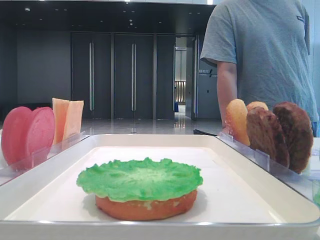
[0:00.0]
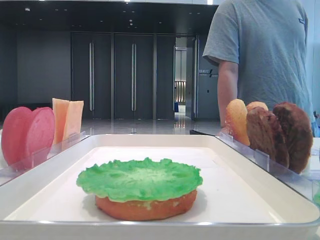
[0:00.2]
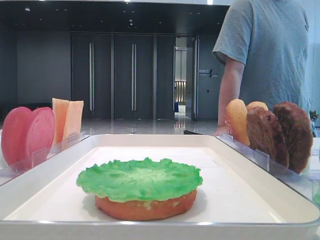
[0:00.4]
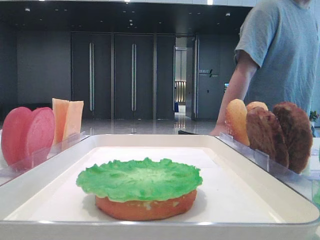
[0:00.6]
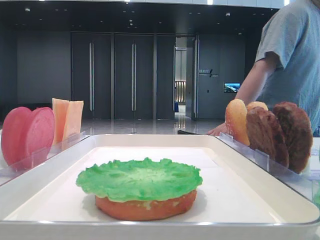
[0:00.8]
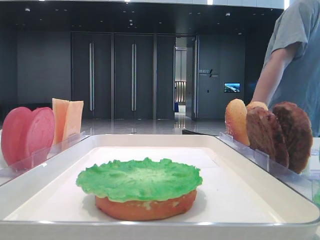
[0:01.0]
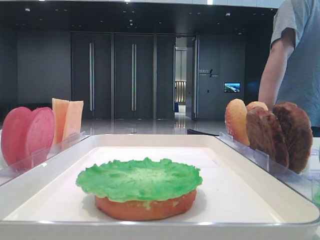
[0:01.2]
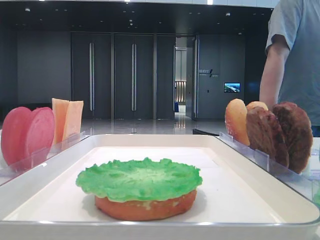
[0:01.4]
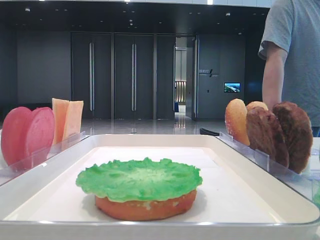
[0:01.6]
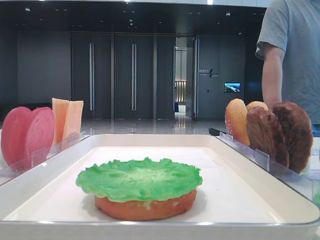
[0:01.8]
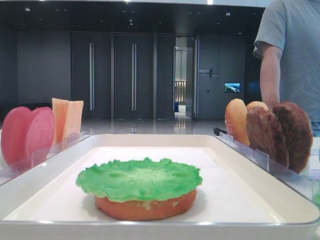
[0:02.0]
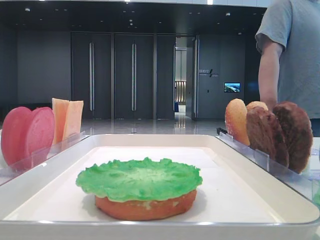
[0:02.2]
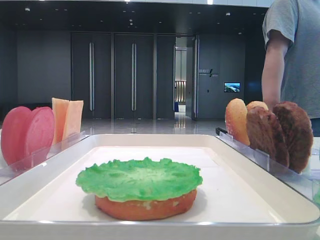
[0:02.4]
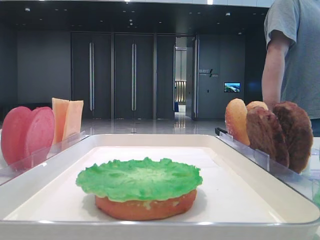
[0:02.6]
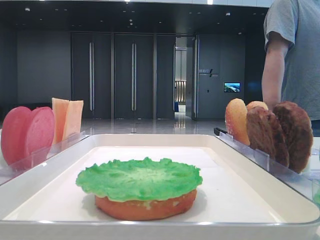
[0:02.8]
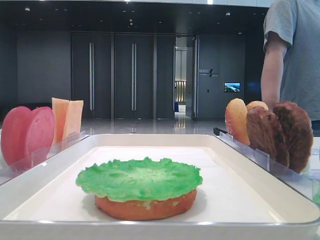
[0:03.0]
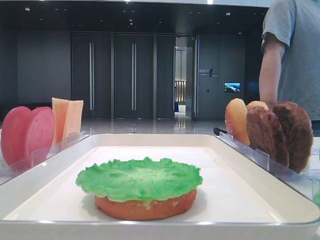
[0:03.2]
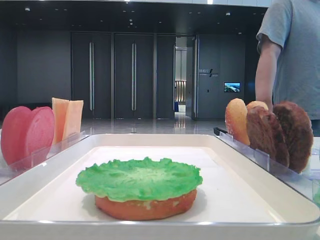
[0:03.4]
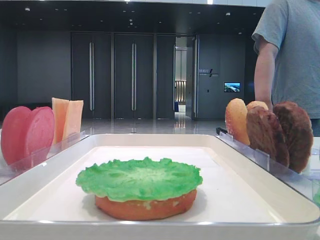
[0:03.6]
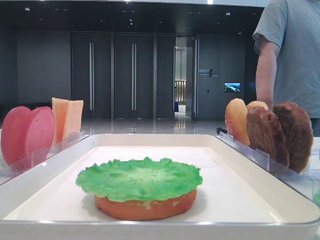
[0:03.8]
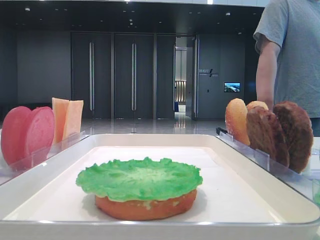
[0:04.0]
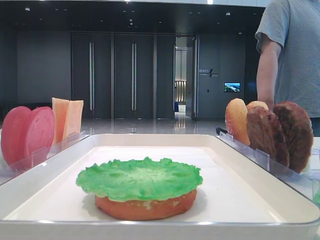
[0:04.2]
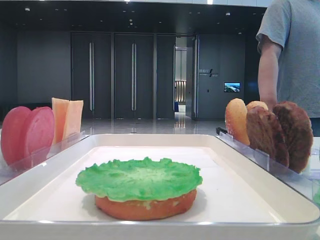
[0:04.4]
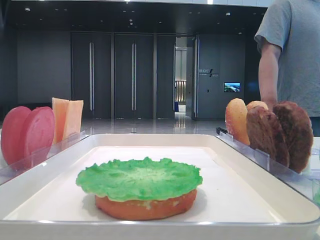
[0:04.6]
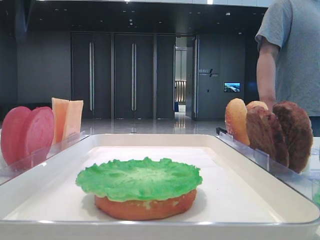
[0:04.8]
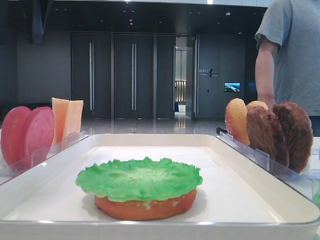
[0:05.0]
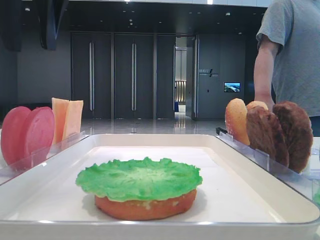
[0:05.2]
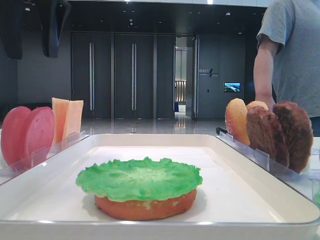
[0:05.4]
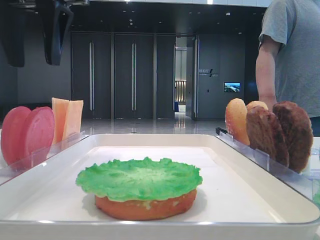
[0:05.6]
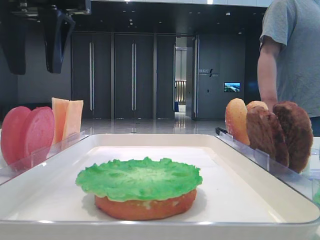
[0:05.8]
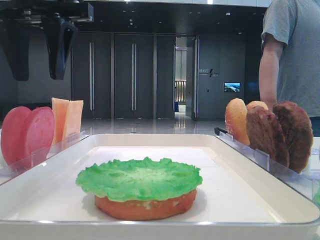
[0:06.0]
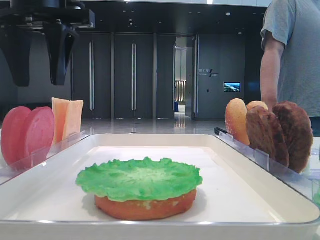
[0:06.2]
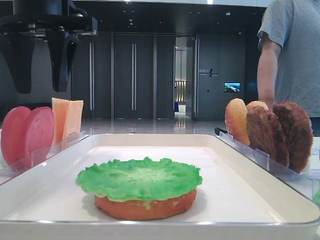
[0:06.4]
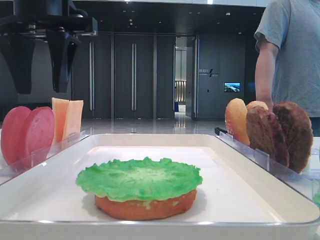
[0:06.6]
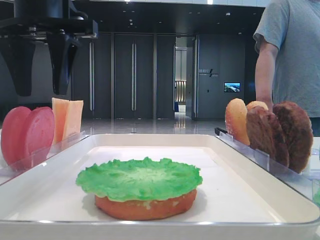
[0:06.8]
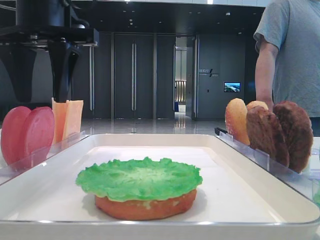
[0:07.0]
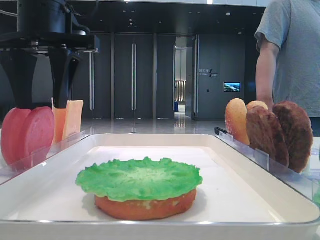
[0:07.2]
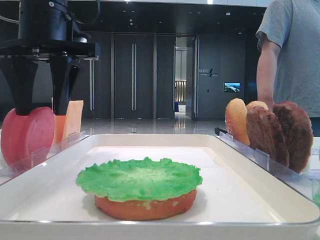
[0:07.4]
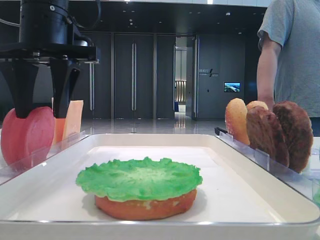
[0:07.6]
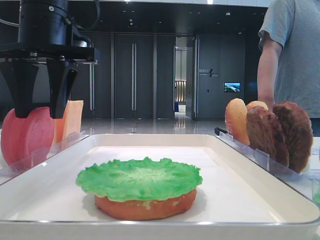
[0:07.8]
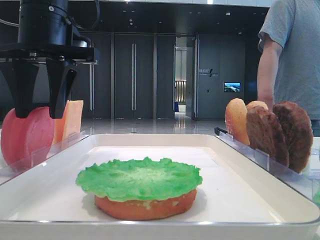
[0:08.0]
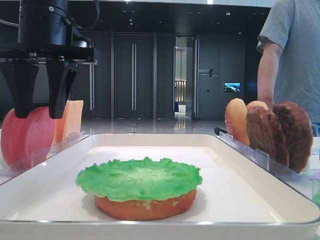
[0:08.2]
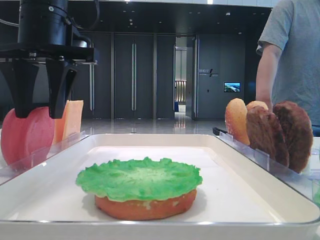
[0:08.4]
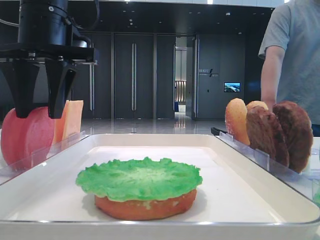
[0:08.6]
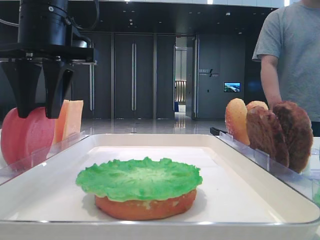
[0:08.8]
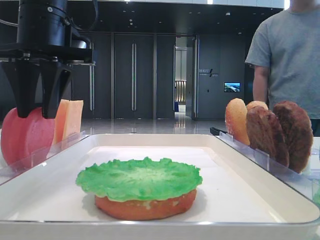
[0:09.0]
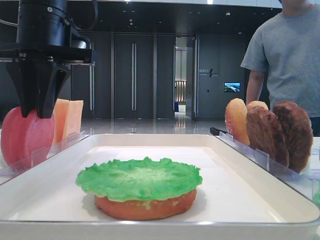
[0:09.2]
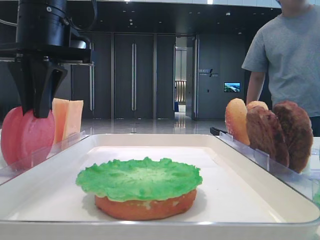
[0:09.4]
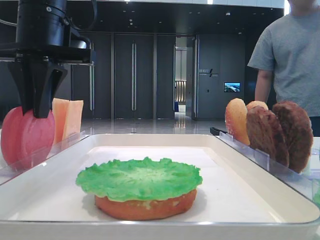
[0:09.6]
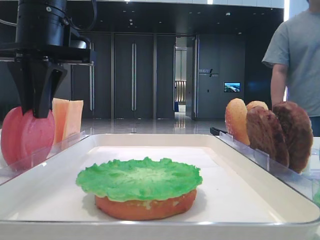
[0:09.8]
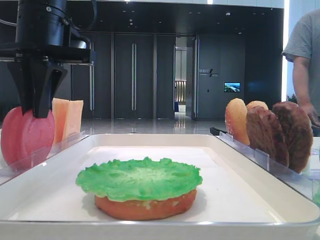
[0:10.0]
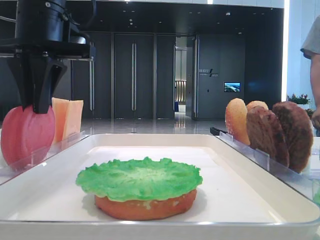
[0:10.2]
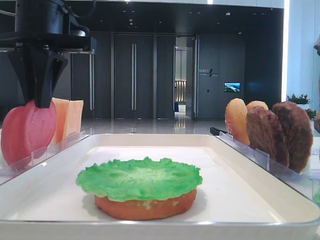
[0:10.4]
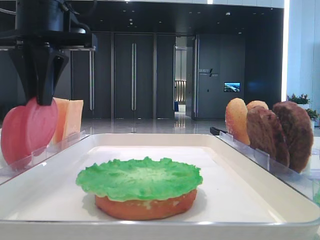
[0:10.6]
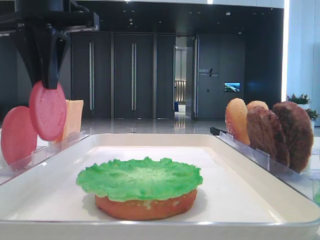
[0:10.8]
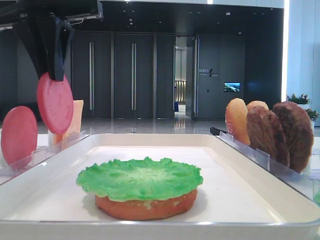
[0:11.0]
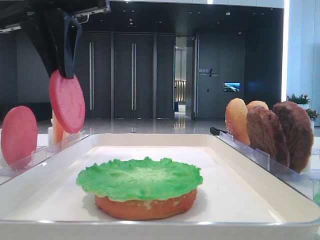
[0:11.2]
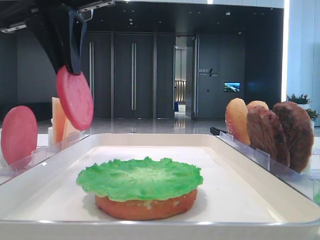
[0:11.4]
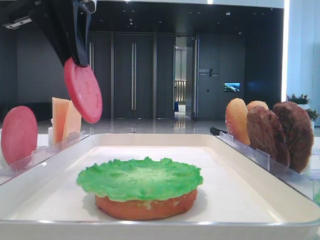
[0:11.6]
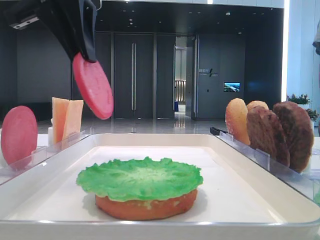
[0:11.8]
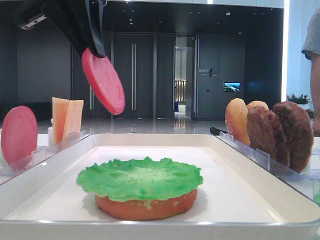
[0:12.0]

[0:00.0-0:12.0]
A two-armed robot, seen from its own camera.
Step, 0:00.0 to 0:09.8: Pick up the tomato slice with the left hand.
0:04.4 to 0:06.0: The left gripper is displaced to the right and downward by roughly 15 cm.
0:06.0 to 0:07.6: The left gripper ends up about 5 cm from where it was.
0:07.6 to 0:09.0: The two grippers keep their place.
0:09.0 to 0:10.4: The left gripper closes up.
0:10.4 to 0:12.0: The left gripper shifts by about 5 cm.

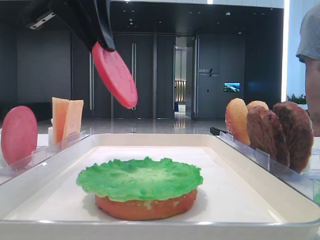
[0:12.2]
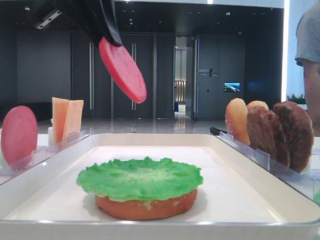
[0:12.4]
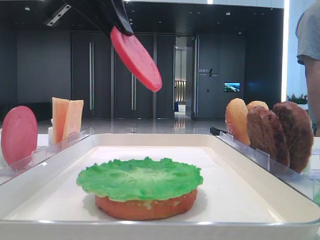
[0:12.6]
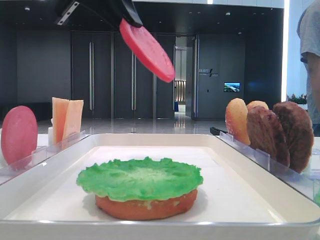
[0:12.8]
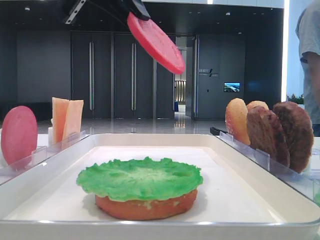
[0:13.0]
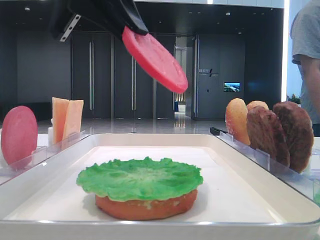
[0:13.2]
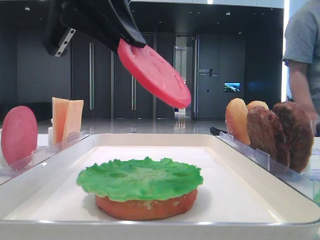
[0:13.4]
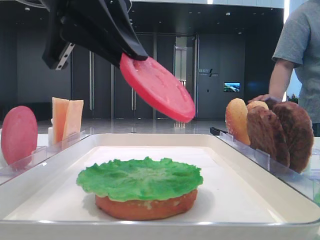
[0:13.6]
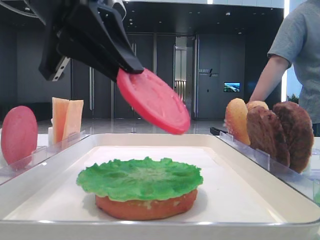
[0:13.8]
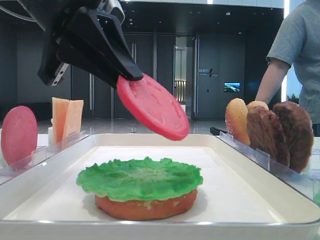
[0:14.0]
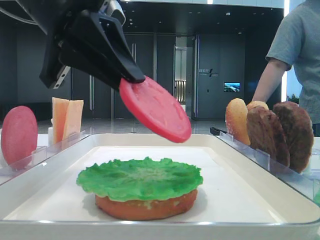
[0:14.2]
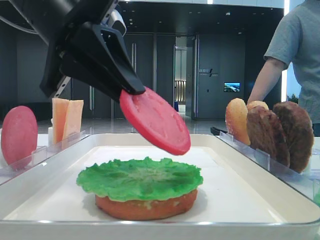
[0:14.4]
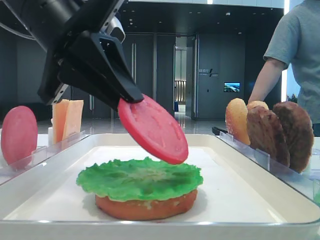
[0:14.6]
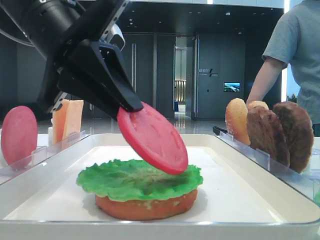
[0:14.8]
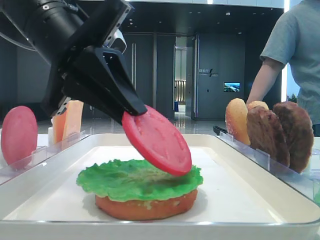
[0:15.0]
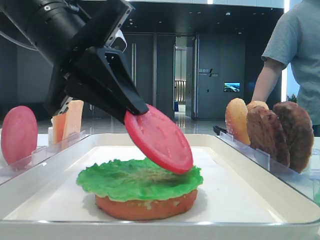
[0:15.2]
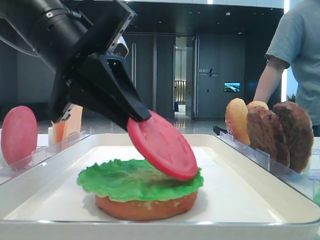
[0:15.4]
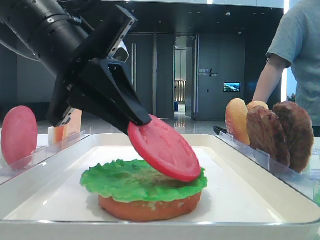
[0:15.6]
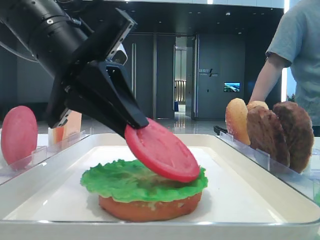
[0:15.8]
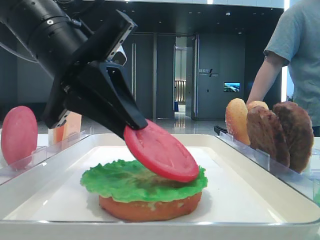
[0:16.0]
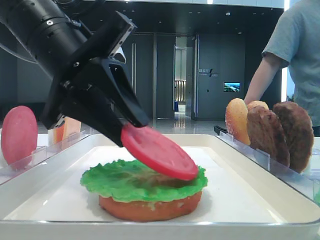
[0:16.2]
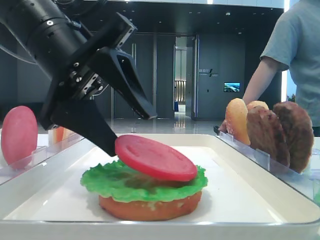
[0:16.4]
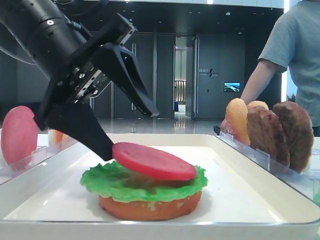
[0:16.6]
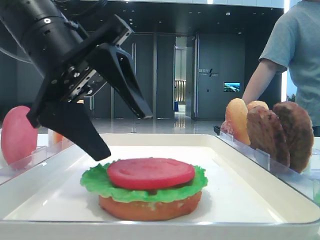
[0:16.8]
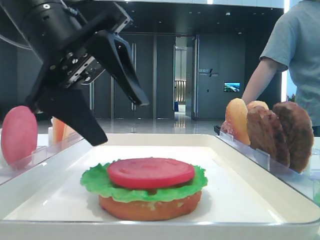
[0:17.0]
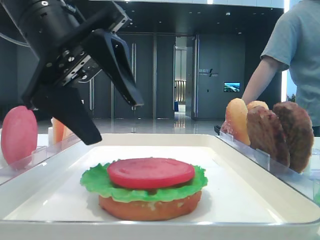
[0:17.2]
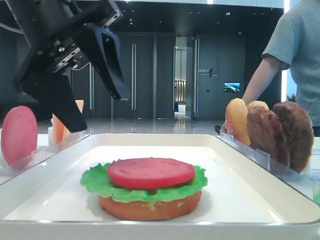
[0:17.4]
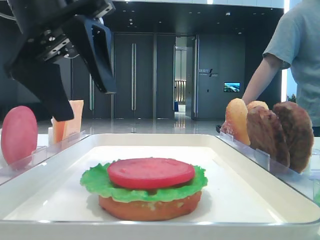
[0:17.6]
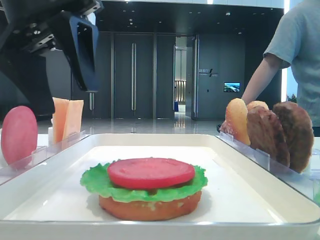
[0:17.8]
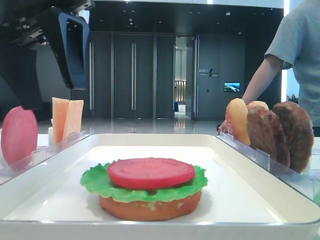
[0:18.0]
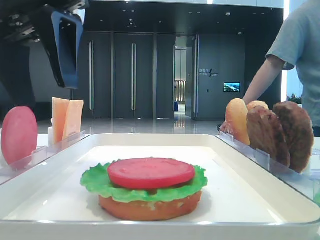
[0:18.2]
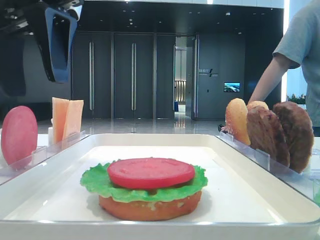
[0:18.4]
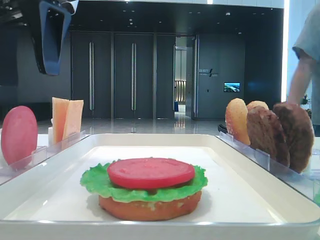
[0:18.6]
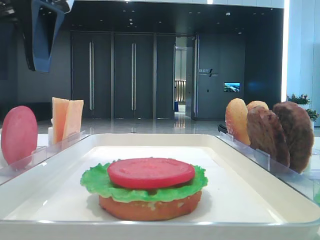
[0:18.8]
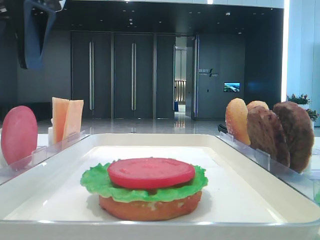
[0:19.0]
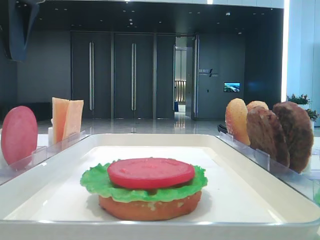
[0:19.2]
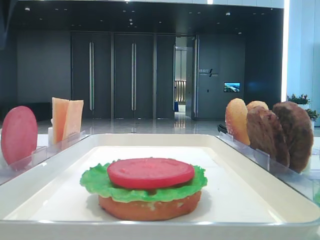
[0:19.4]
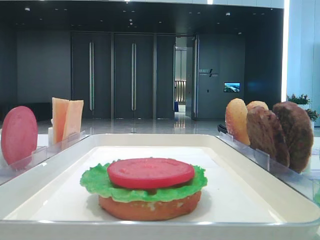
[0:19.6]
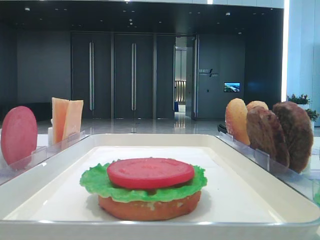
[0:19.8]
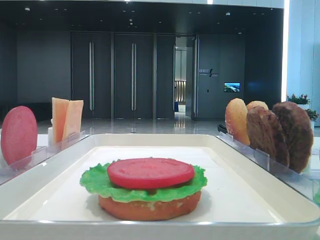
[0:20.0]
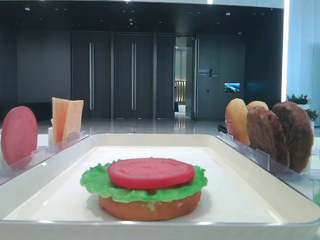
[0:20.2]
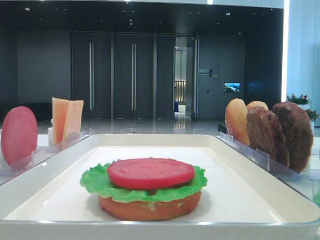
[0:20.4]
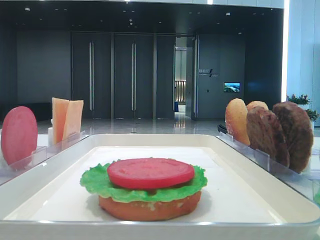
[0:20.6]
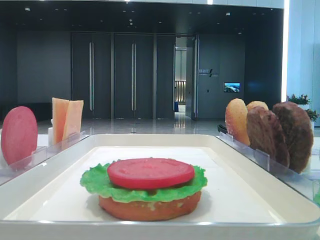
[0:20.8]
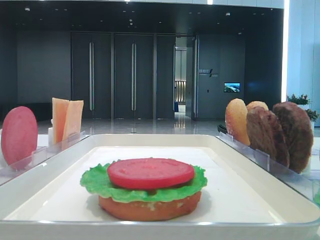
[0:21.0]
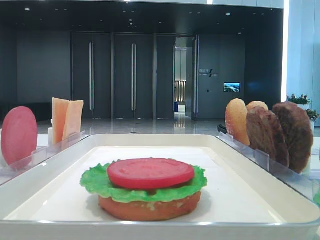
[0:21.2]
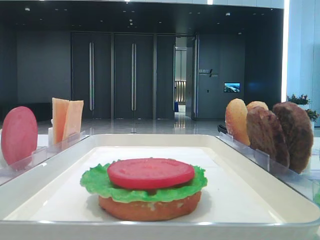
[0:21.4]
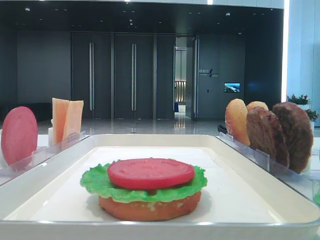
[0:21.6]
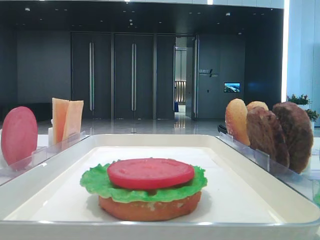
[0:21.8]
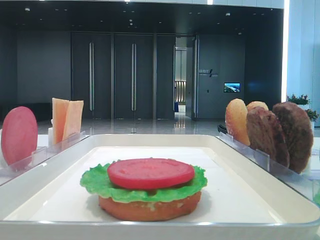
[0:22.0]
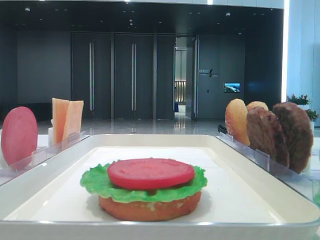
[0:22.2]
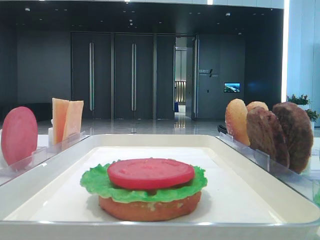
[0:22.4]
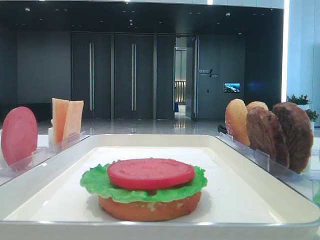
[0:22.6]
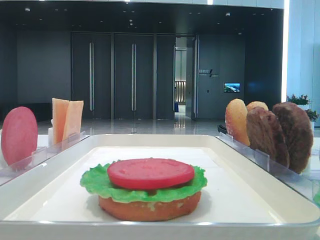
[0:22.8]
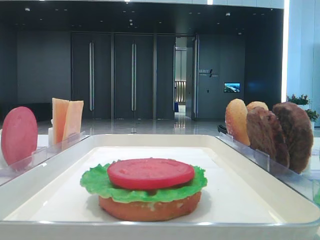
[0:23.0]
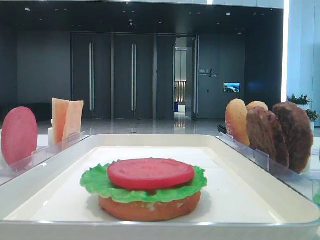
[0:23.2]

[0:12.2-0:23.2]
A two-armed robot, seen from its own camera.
Step, 0:12.2 to 0:16.6: Place the tomato slice on the lettuce leaf with the left hand.
0:12.2 to 0:13.8: The left gripper heads downward, covering roughly 5 cm.
0:13.8 to 0:15.4: The grippers stay close to where they were, moving slightly.
0:15.4 to 0:17.0: The left gripper opens up.
0:17.0 to 0:18.4: The left gripper heads upward, covering approximately 5 cm.
0:18.4 to 0:20.0: The left gripper is displaced to the left and upward by some 15 cm.
